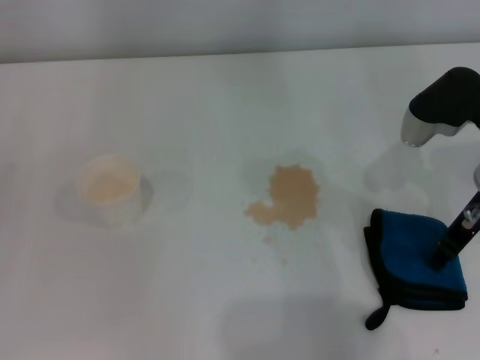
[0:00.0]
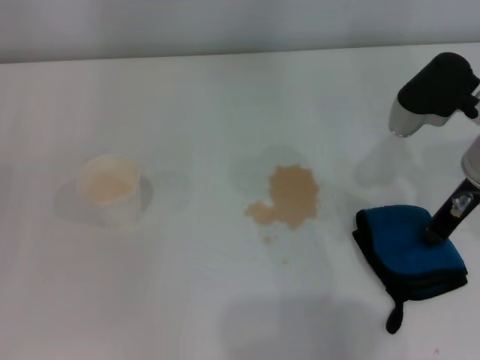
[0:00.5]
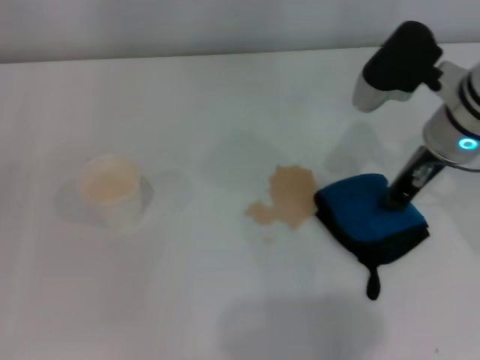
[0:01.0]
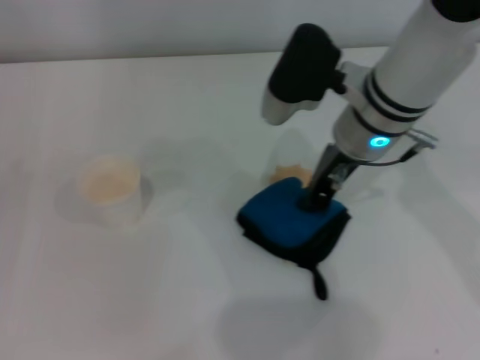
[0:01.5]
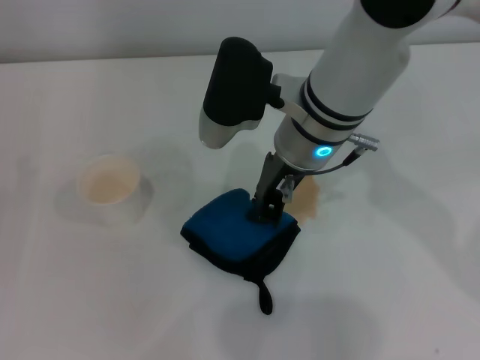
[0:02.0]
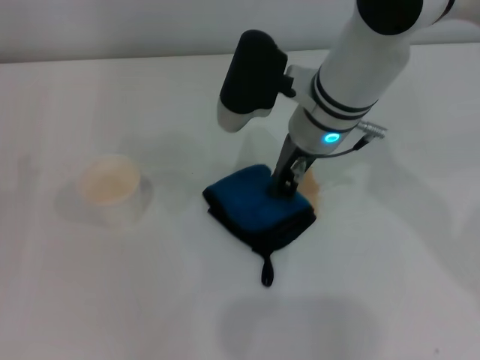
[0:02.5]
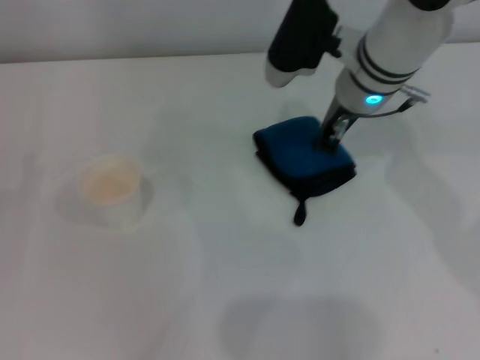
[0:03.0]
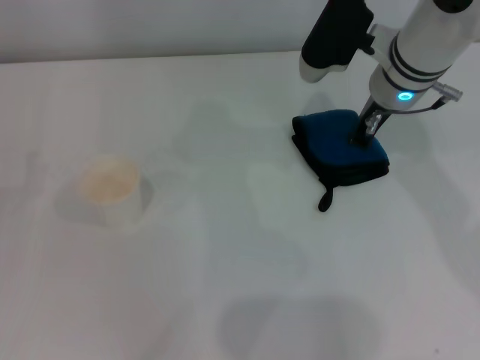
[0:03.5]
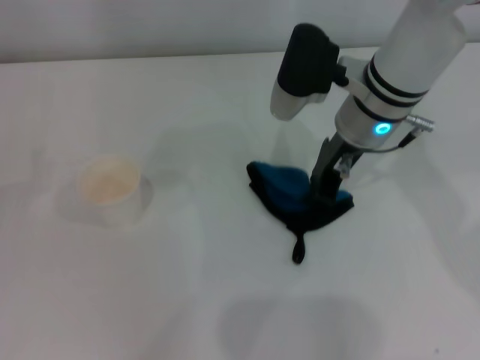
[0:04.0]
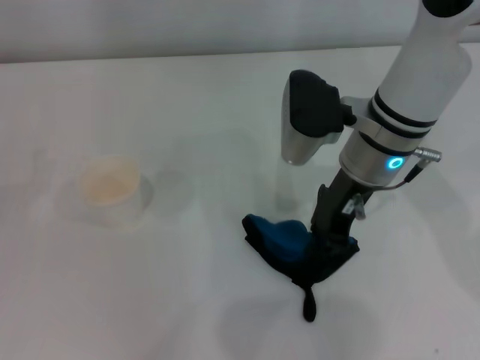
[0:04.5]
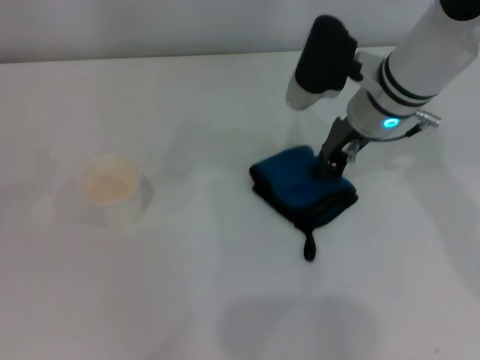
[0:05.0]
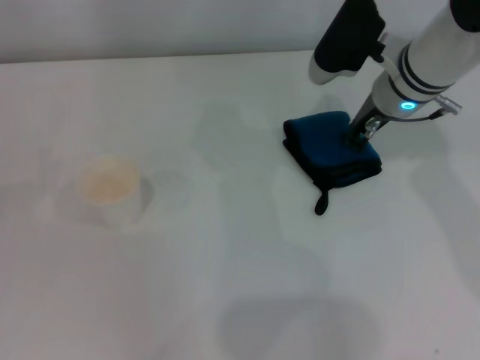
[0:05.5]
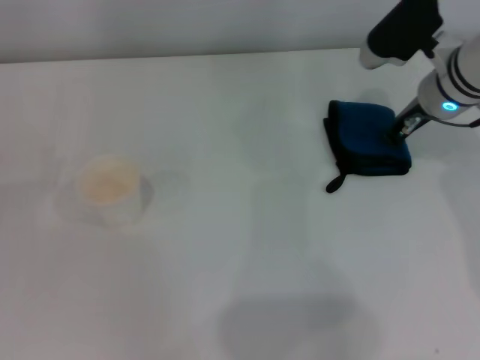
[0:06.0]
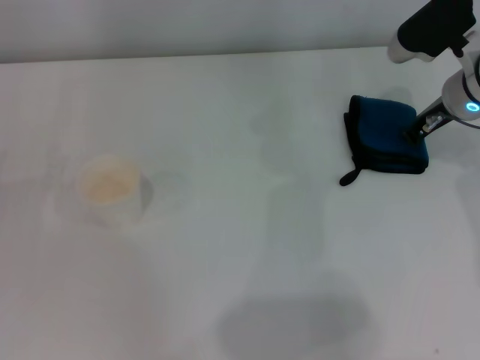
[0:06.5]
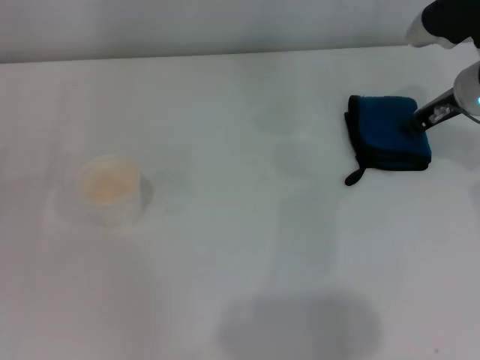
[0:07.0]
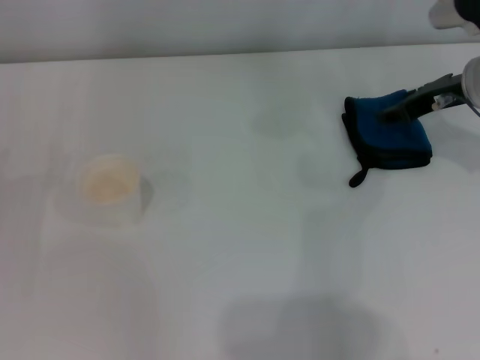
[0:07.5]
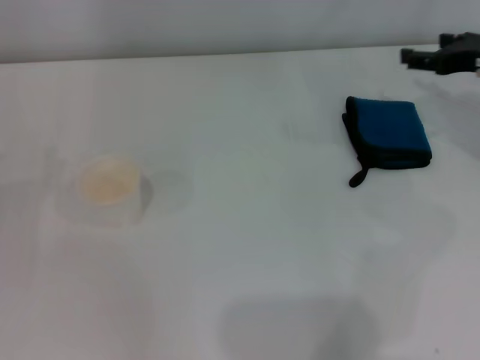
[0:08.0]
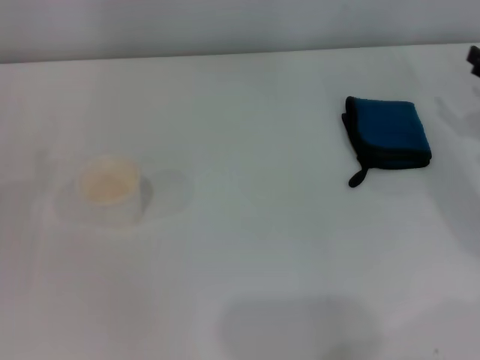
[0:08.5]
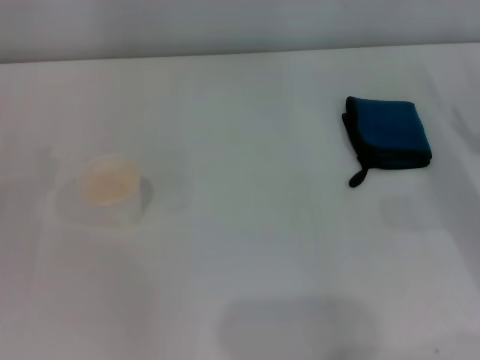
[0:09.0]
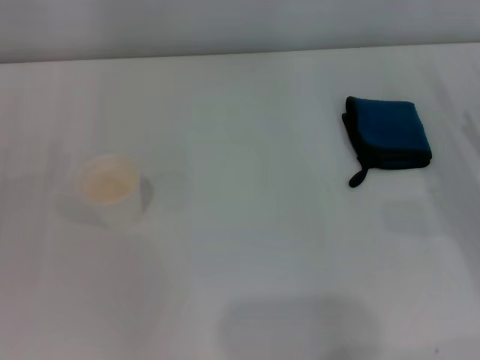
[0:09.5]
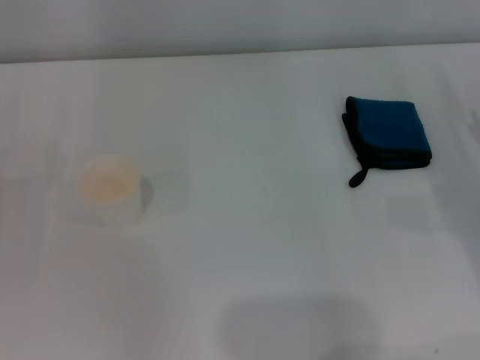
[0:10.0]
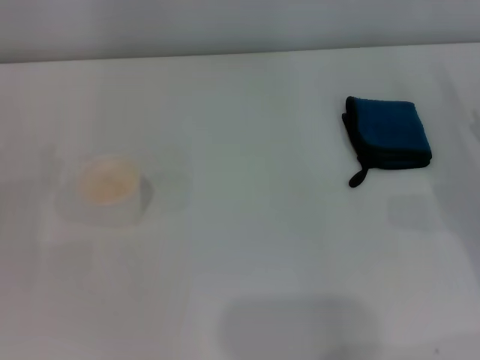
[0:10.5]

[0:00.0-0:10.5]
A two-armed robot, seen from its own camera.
Step, 0:00.5 to 0:06.0: Wipe the stains off the table with the right gripper.
0:00.0 to 0:02.0: The right gripper goes some 20 cm to the left, and closes its fingers.
0:02.0 to 0:04.0: The right gripper heads to the right, covering approximately 5 cm.
0:04.0 to 0:06.5: The right gripper heads to the right, covering roughly 10 cm.
0:06.5 to 0:08.5: The right gripper is displaced to the right and backward by roughly 15 cm, and opens its fingers.

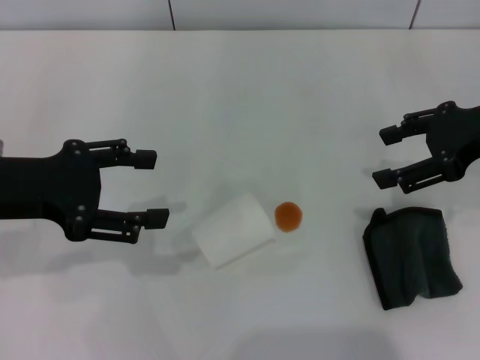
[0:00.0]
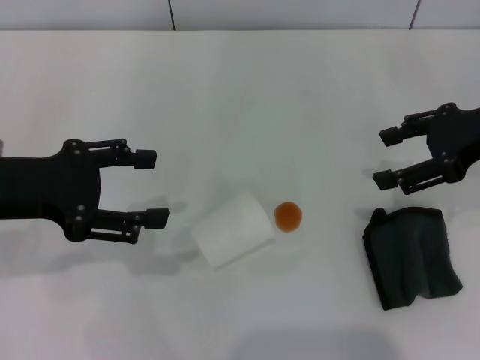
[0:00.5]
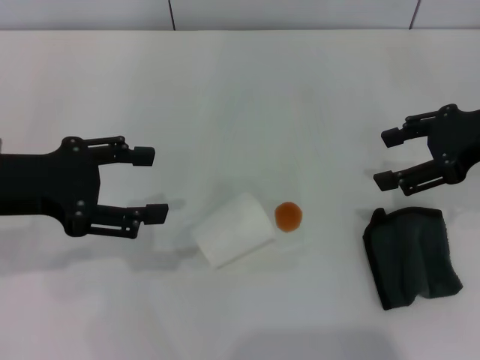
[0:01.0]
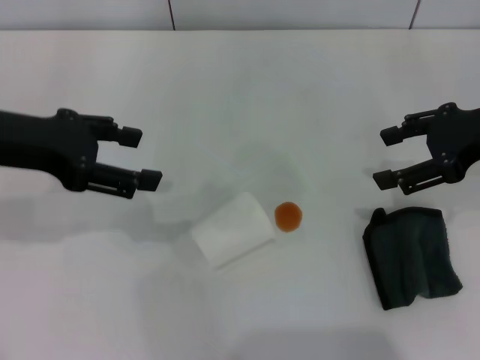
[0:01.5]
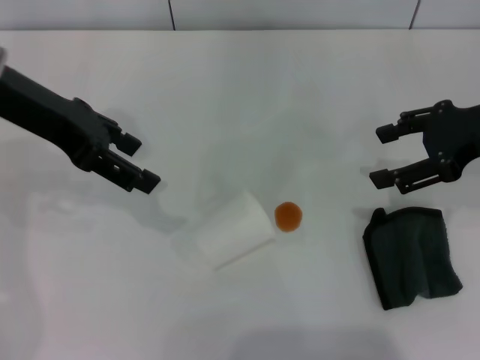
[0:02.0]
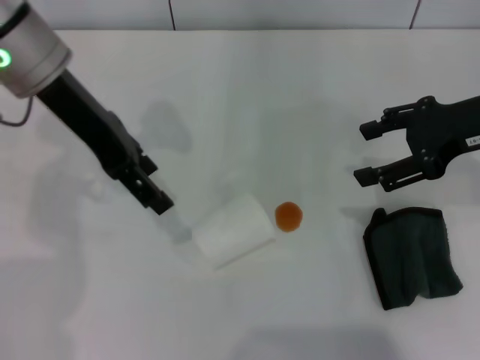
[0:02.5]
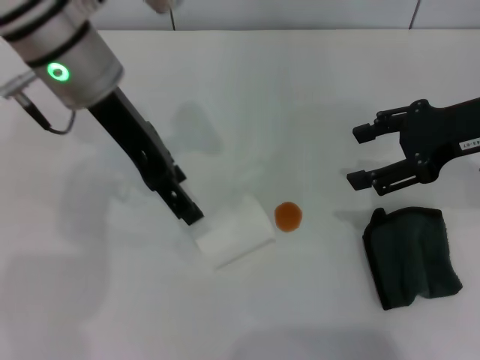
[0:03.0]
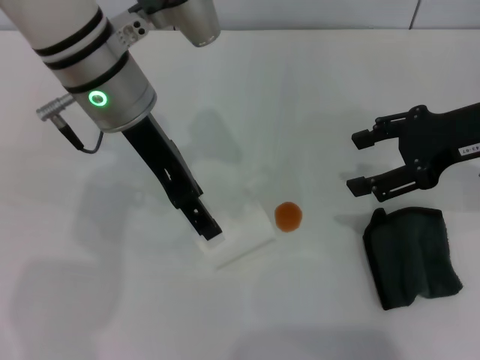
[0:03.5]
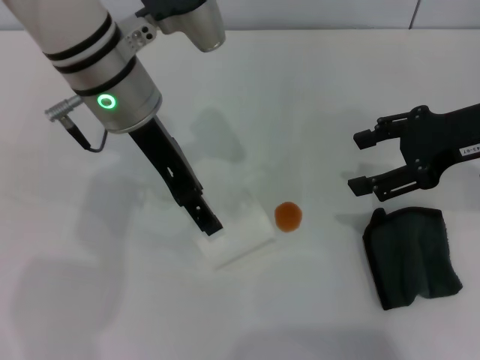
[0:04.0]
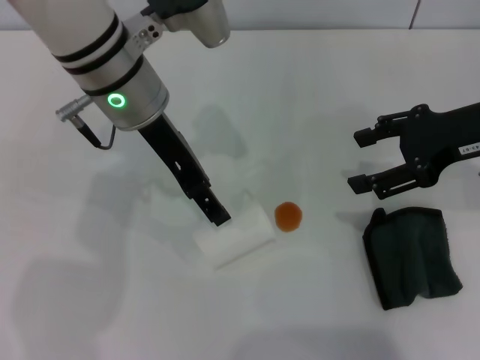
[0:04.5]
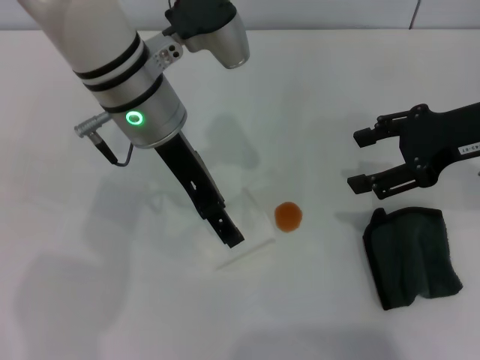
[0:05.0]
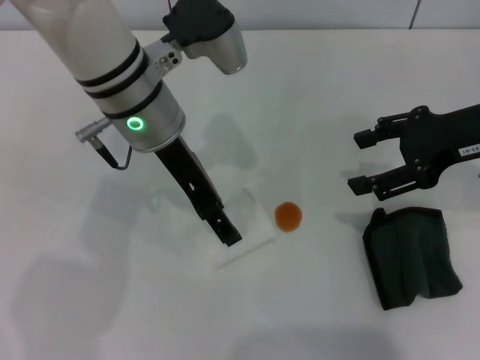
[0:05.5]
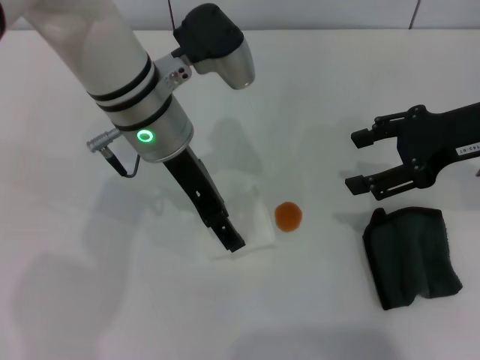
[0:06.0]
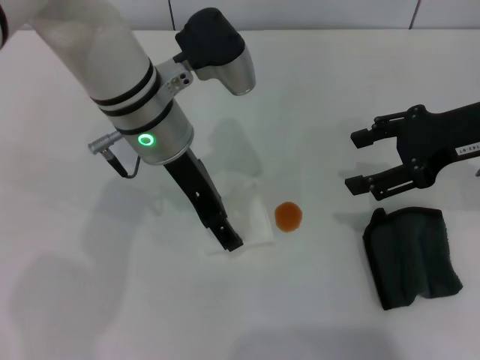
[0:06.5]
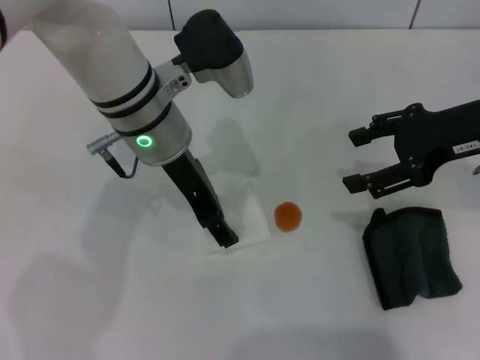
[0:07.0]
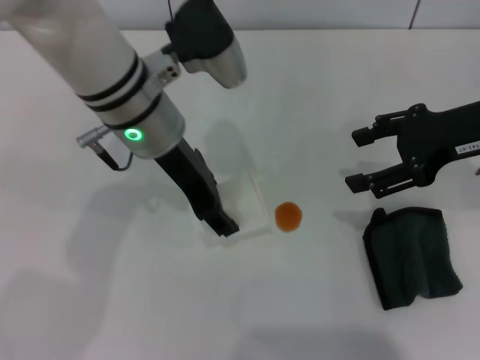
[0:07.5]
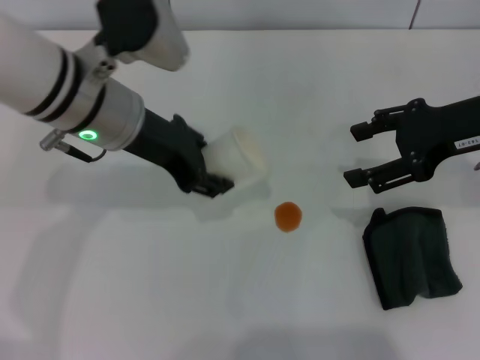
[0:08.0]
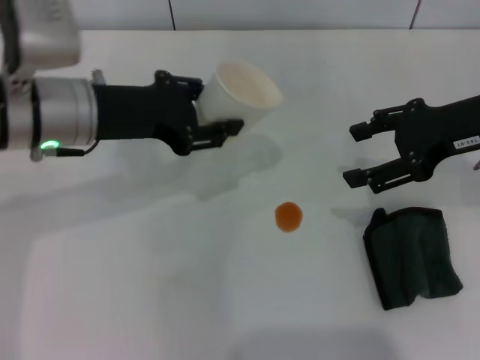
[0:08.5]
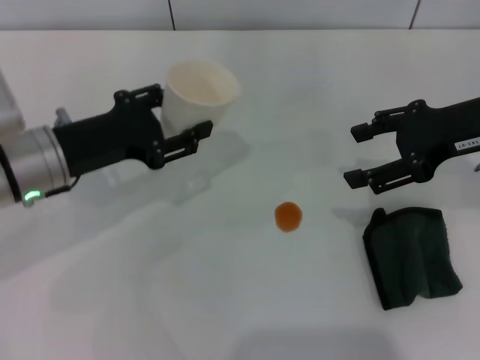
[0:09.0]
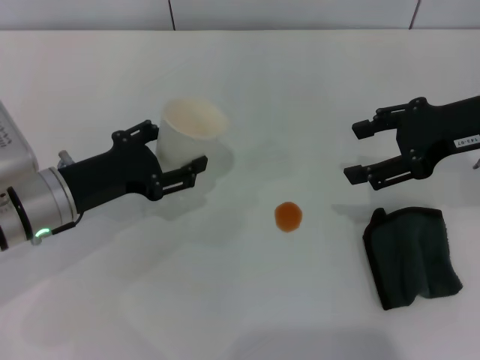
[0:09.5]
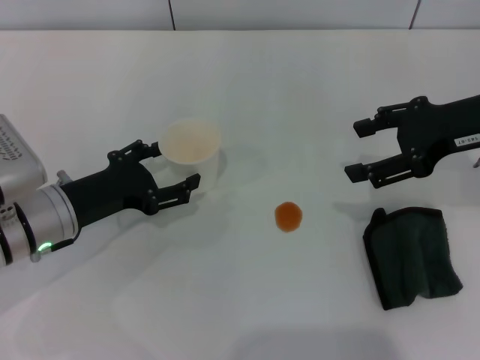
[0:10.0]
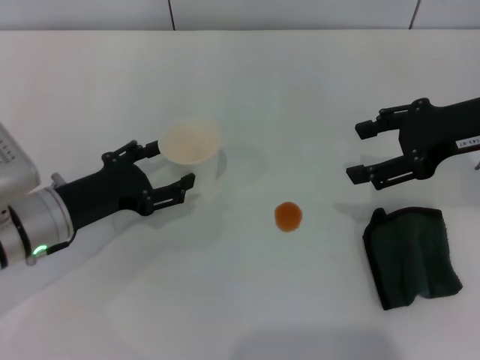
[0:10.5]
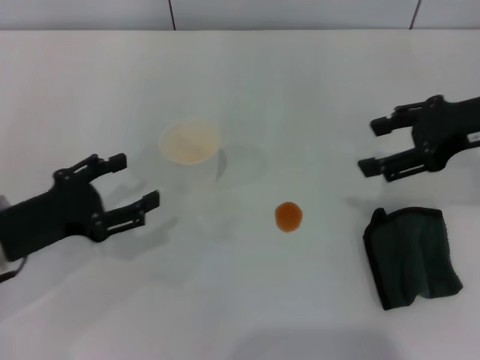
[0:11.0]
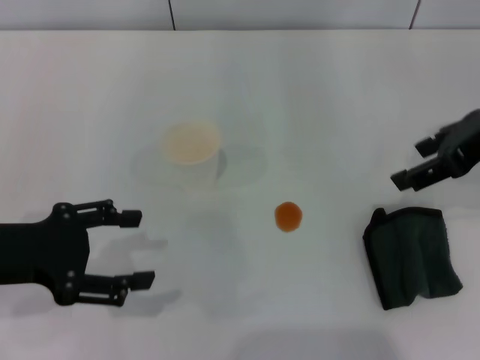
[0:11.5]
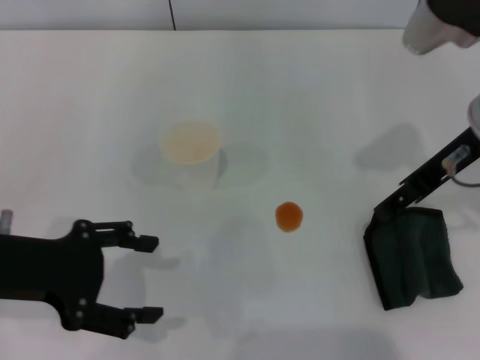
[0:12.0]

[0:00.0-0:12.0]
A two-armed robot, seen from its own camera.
Step, 0:00.0 to 0:07.0: Grasp the paper cup with the left gripper.
Step, 0:07.5 to 0:10.5: Stand the paper cup upright with the left gripper.
0:00.0 to 0:02.0: The left gripper moves forward and upward, approximately 10 cm.
0:02.0 to 0:04.0: The left gripper moves to the right, about 10 cm.
0:04.0 to 0:06.0: The grippers make only small movements.
0:06.0 to 0:08.0: The left gripper goes roughly 5 cm to the left, and closes.
0:08.0 to 0:10.0: The left gripper is displaced downward, to the left and backward by some 20 cm, and opens.
0:10.0 to 0:12.0: The left gripper is displaced upward and backward by approximately 10 cm. The right gripper is displaced to the left by roughly 5 cm.

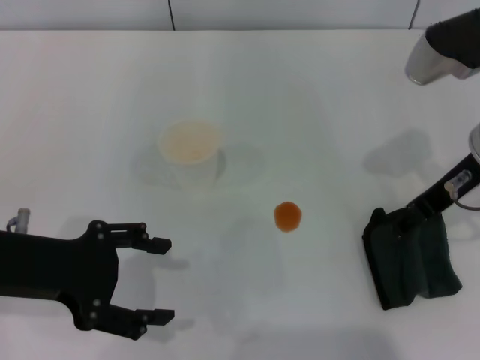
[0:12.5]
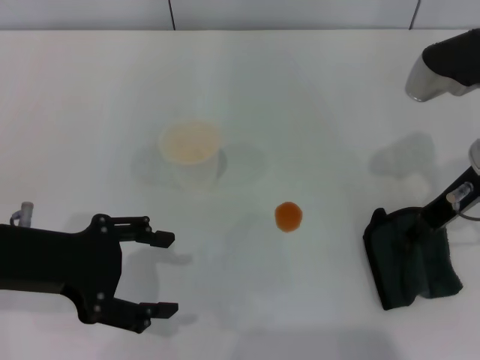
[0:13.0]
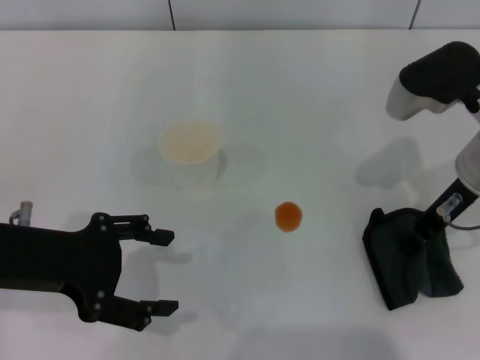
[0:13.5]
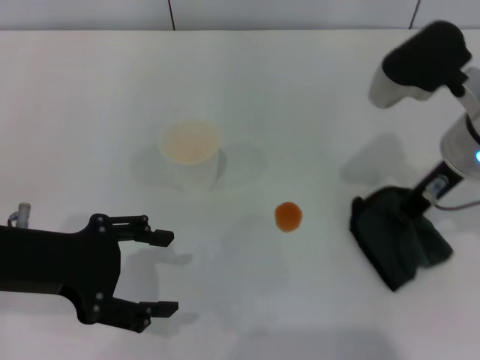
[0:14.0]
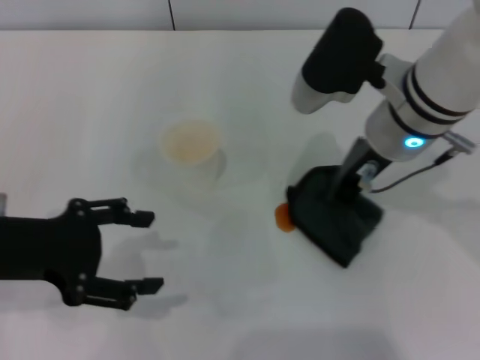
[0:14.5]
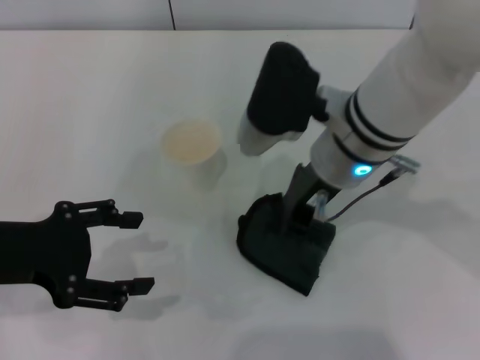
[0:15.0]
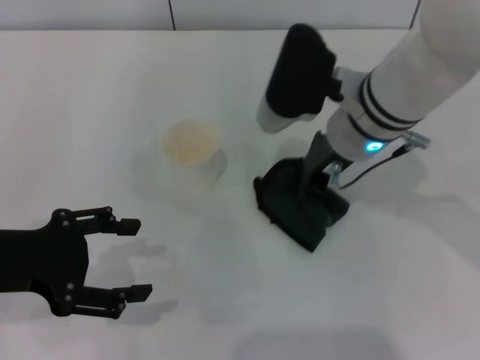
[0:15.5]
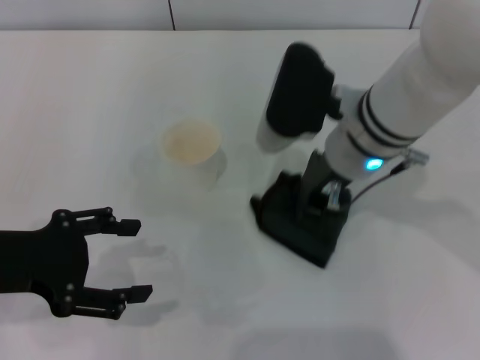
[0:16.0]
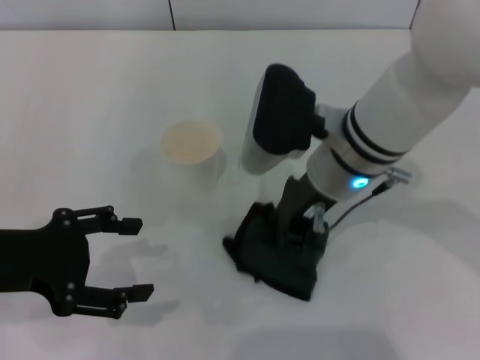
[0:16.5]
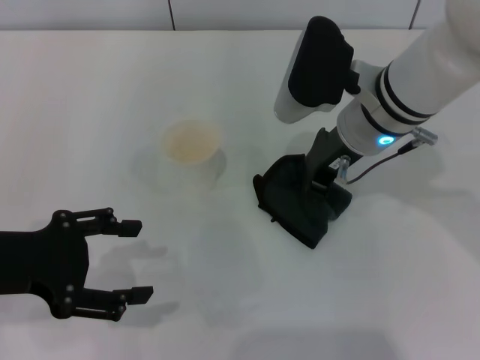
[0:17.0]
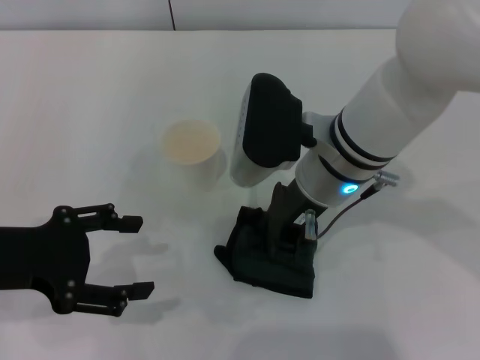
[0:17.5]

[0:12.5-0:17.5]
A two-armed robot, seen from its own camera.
0:12.5 to 0:15.0: The right gripper heads to the left, covering approximately 15 cm, and closes.
0:15.0 to 0:17.5: The grippers make only small movements.
